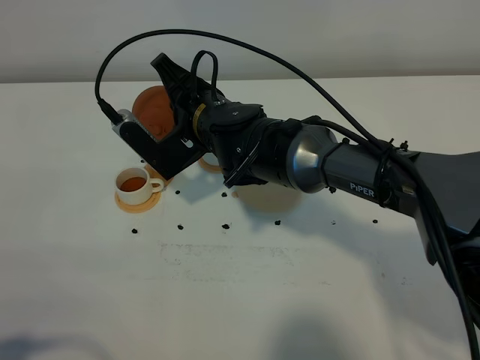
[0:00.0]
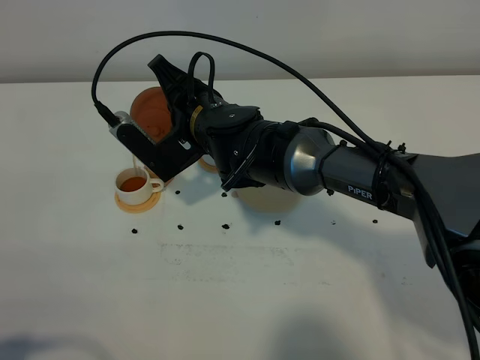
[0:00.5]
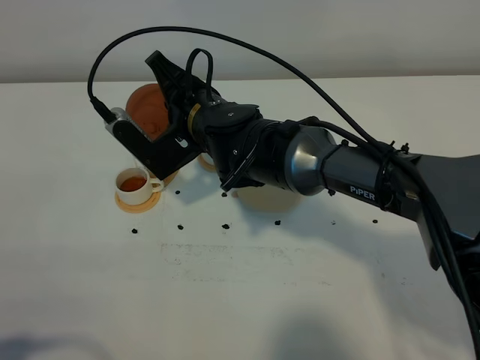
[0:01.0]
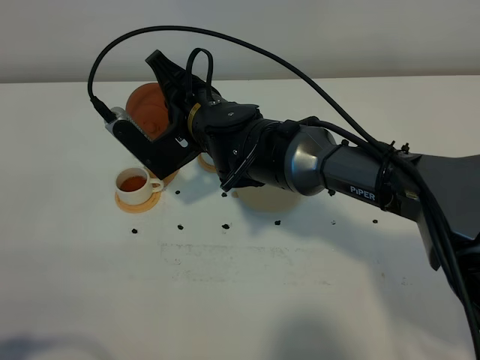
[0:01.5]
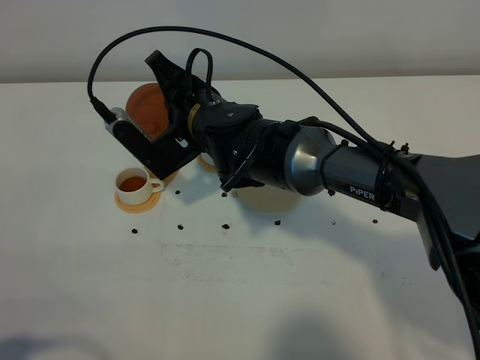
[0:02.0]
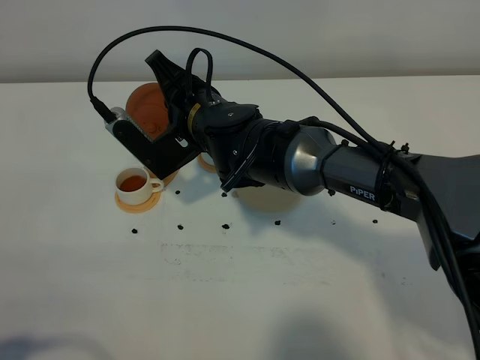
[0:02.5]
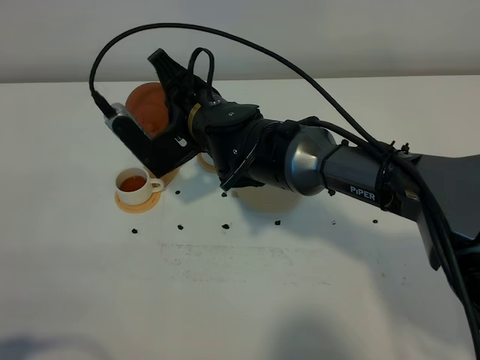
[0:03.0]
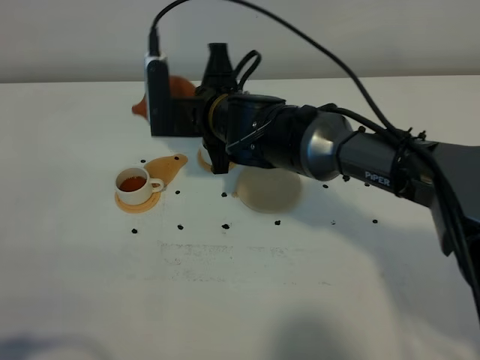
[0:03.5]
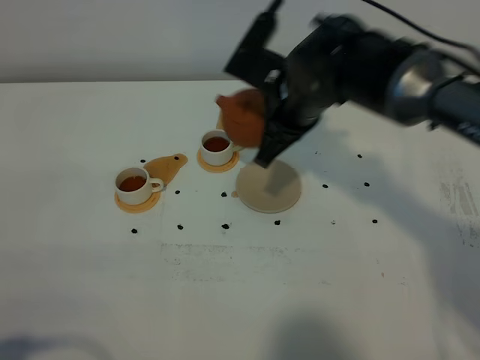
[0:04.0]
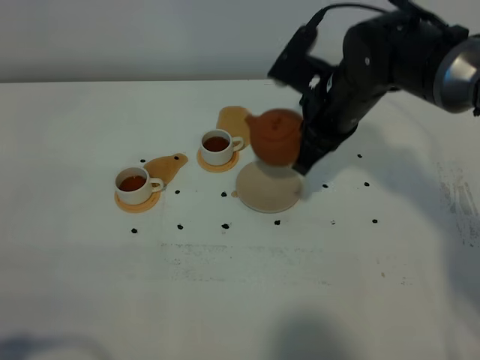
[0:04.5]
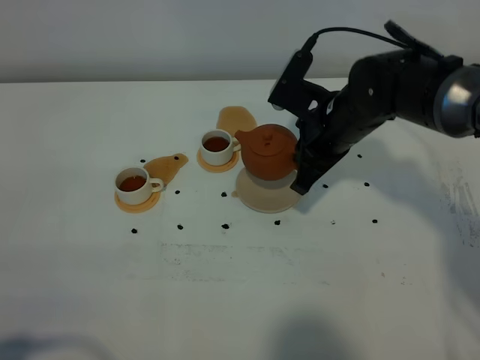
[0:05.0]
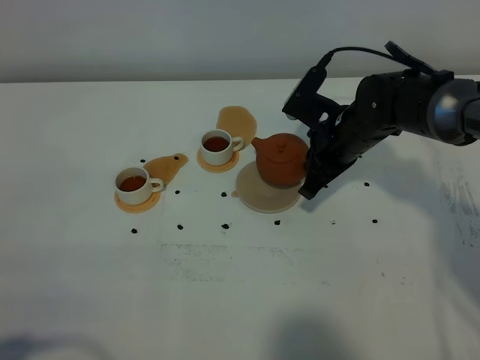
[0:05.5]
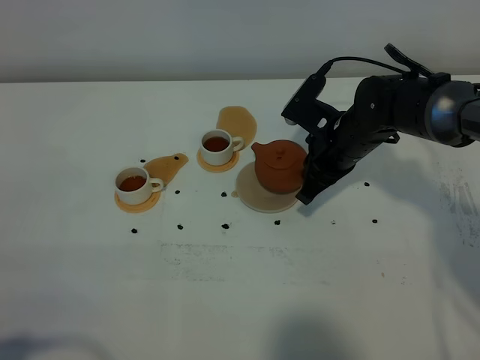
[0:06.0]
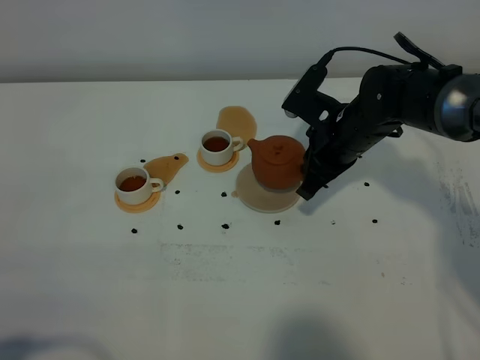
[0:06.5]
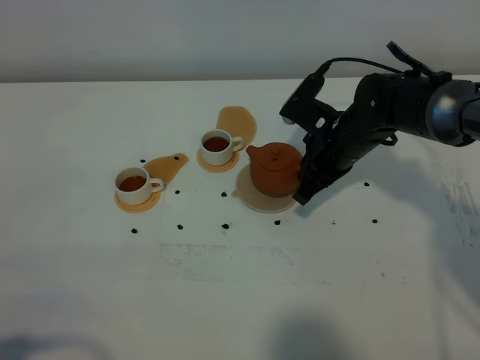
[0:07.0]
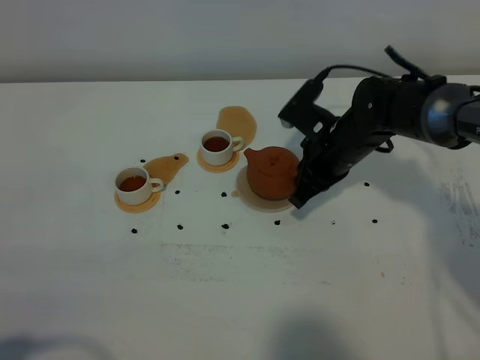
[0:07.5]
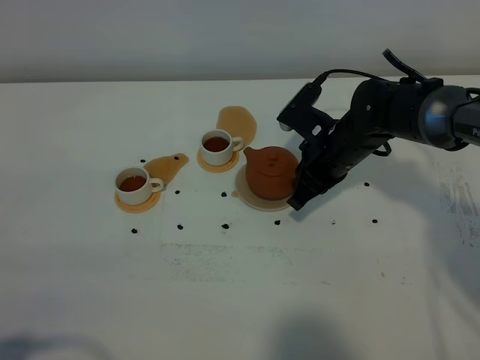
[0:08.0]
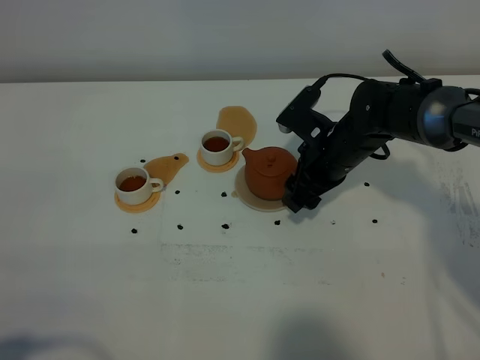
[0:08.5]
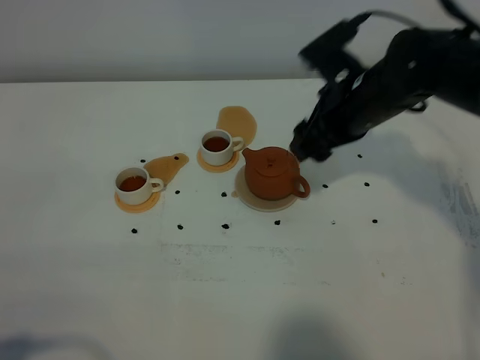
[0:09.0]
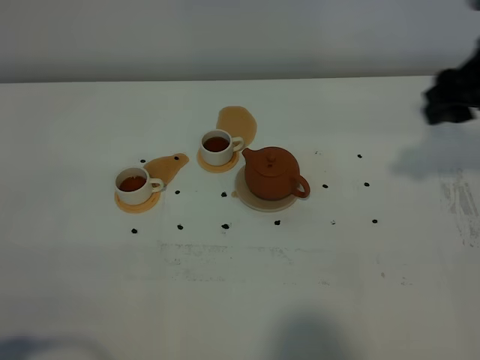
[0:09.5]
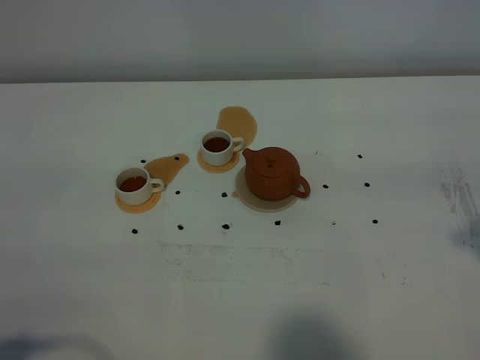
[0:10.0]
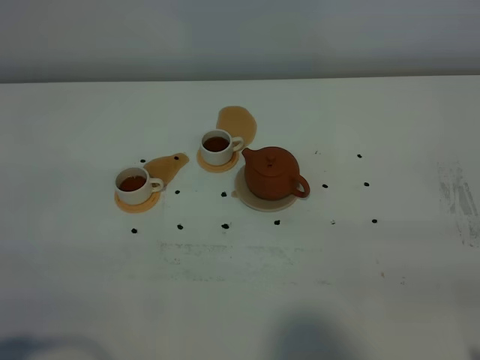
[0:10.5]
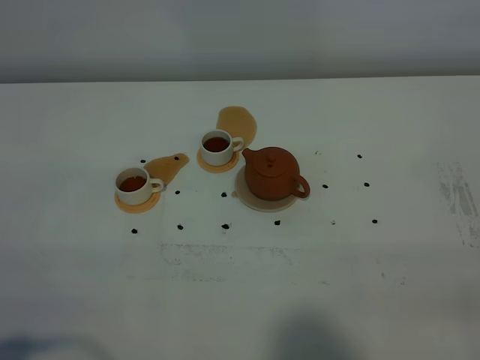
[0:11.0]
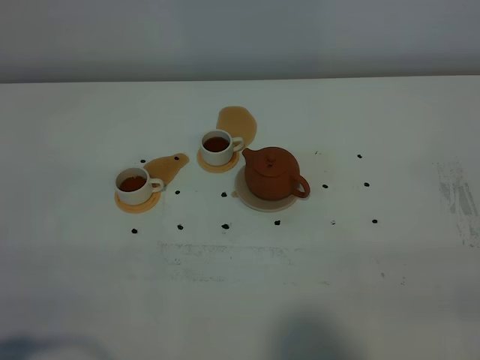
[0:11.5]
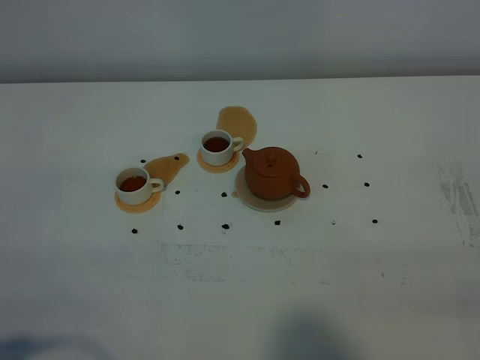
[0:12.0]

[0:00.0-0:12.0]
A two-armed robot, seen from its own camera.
Task of the whole recording: grasp the brown teapot and pour the tea into the two white teacups one by one, put the brown teapot back in its original place.
Step, 0:00.0 to 0:03.0: Pour tea into the teacup with the right gripper.
0:00.0 to 0:02.0: The two grippers keep their place.
0:02.0 to 0:04.0: The right gripper heads to the right, covering about 10 cm.
0:04.0 to 0:06.0: The right gripper heads downward and to the right, covering about 10 cm.
0:06.0 to 0:08.0: The grippers make only small movements.
0:08.0 to 0:10.0: The right gripper shifts roughly 35 cm upward, backward and to the right, and opens its fingers.
